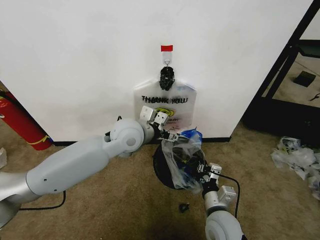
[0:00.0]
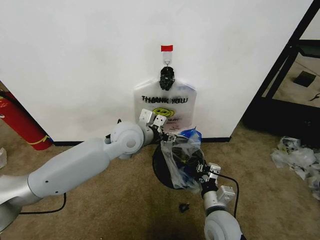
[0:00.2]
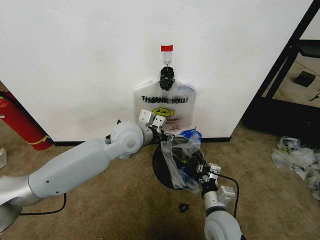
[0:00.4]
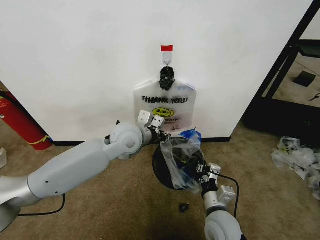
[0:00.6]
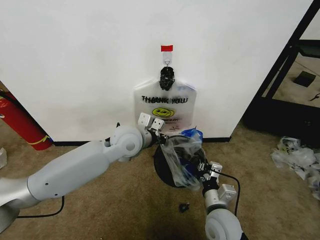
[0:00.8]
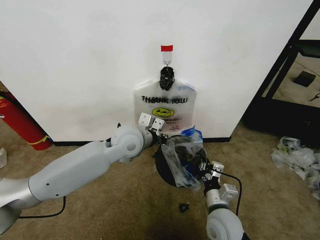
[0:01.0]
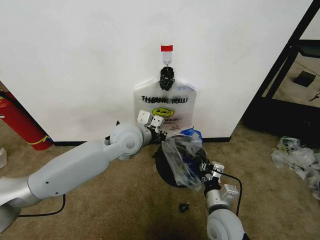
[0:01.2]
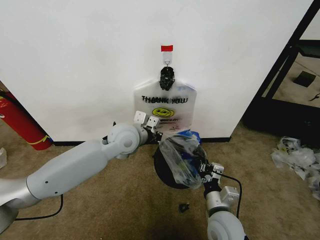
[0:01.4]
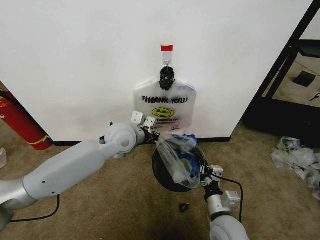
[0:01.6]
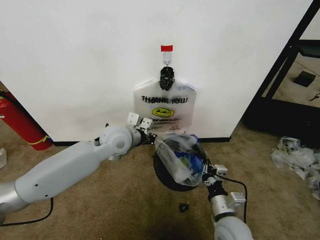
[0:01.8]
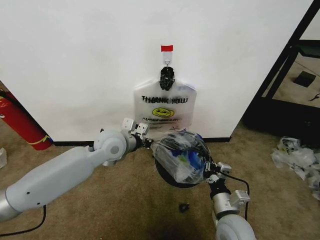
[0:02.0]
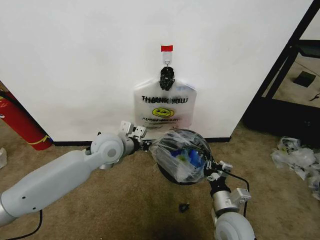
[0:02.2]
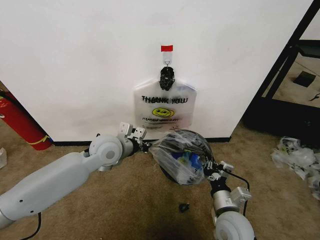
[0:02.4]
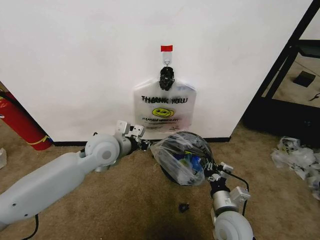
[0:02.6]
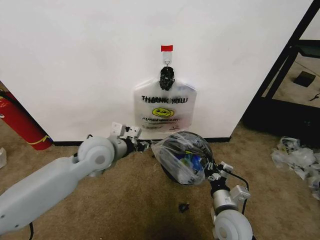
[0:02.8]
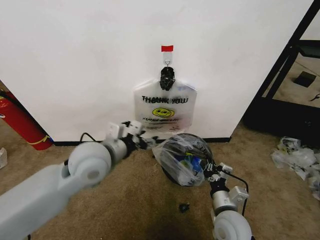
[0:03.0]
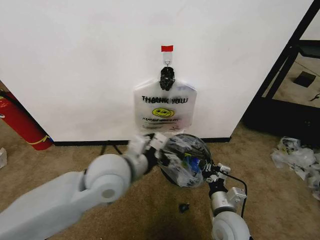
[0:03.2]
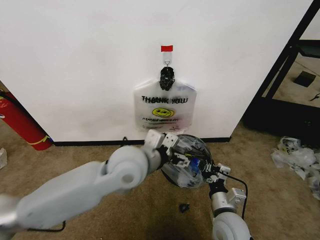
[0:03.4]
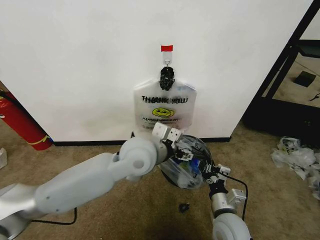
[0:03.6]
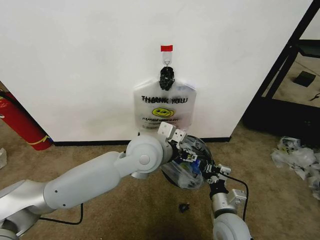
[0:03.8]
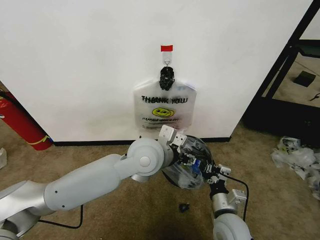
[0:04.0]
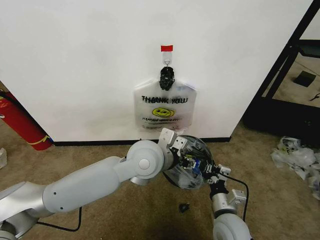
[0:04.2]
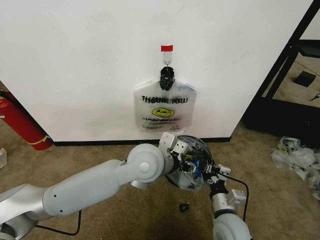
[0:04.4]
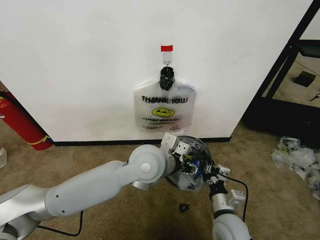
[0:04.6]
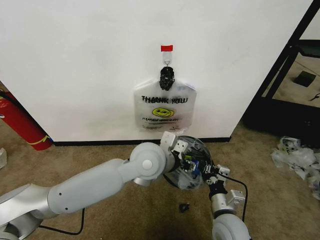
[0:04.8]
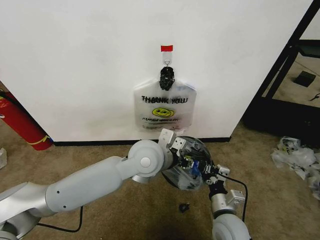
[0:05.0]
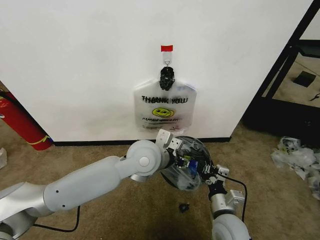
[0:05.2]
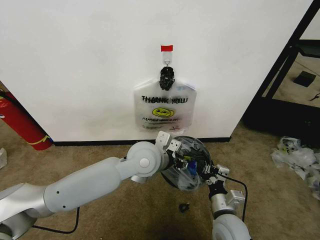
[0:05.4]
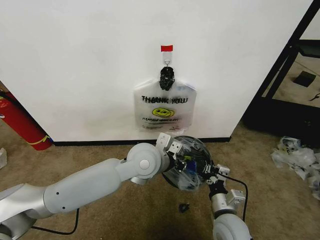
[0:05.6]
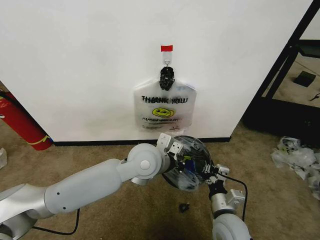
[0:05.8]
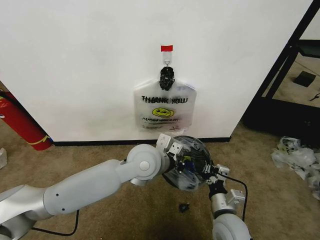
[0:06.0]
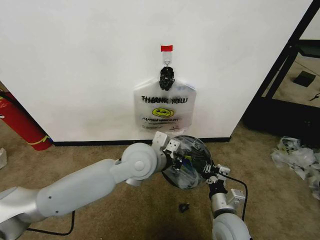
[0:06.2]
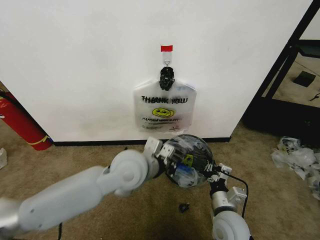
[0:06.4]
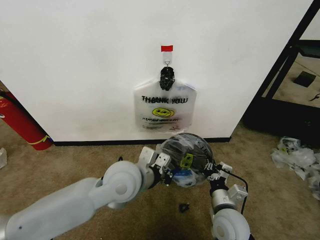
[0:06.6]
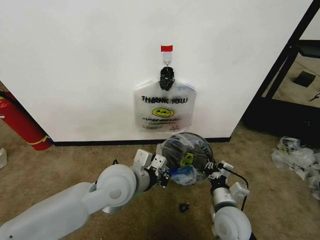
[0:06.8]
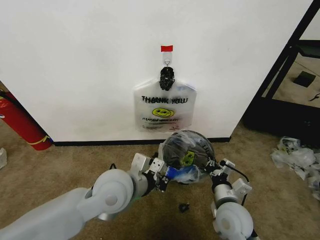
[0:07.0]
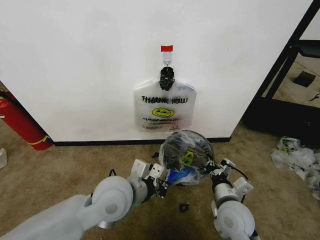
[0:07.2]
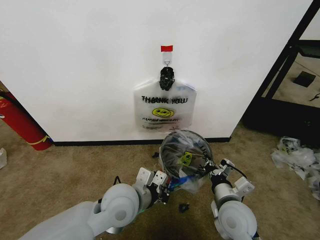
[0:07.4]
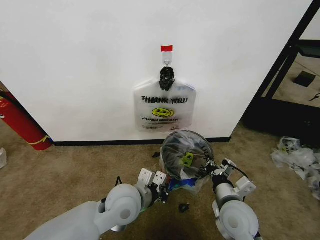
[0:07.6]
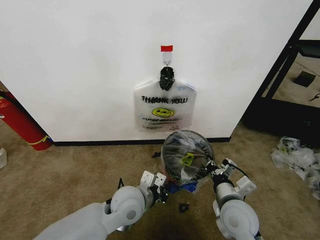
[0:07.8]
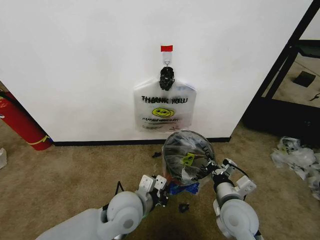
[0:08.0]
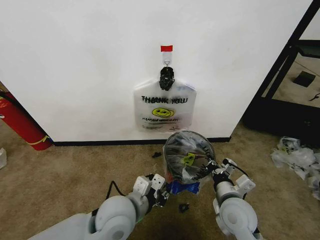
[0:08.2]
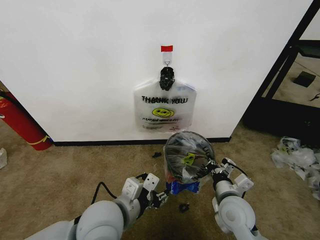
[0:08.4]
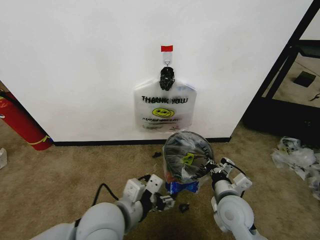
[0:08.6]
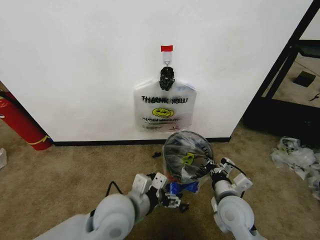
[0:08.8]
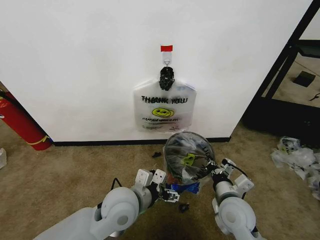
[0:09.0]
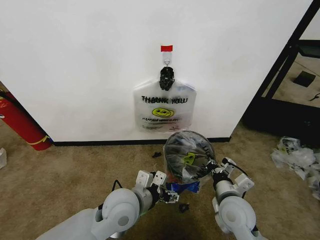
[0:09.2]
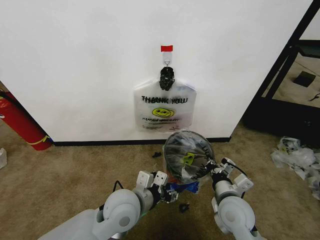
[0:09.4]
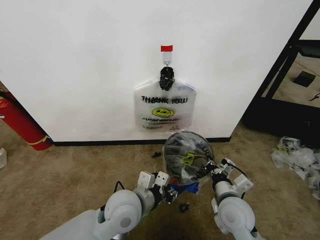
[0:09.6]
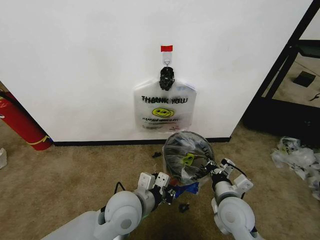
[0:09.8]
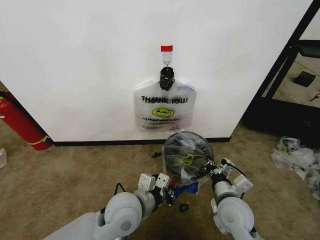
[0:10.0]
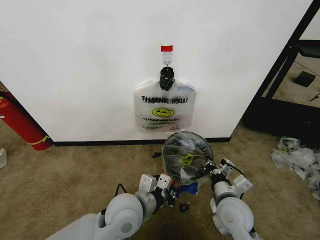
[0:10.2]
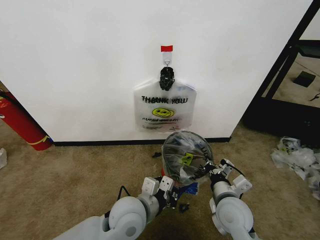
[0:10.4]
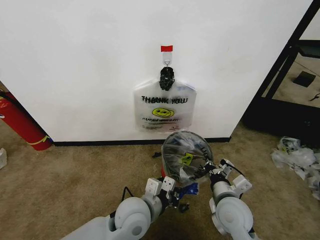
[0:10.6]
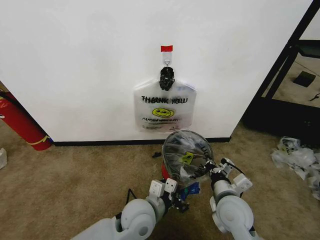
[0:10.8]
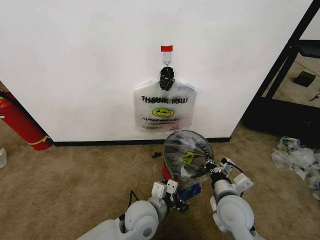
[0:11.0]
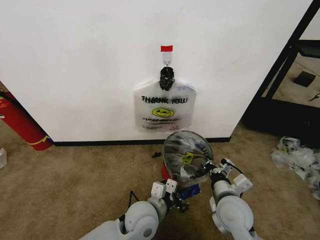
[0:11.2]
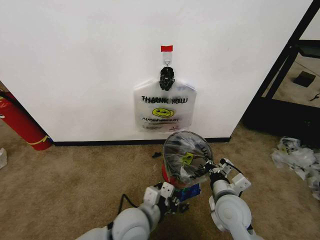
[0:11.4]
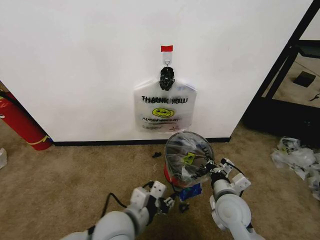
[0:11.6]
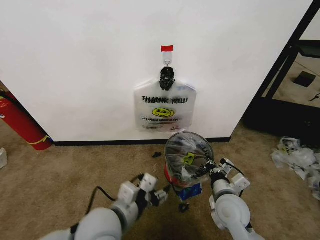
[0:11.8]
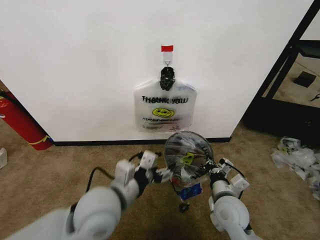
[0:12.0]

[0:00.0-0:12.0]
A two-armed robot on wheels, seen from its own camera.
Task of the whole recording: Pick up the garbage bag from the wall and place it over the trash bin.
0:00.0 to 0:01.6: The left gripper closes.
0:01.6 to 0:03.0: The left gripper shifts about 10 cm backward, and opens.
0:03.0 to 0:04.4: The left gripper shifts some 15 cm to the right, and opens and closes again.
0:04.4 to 0:06.0: The left gripper closes.
0:06.0 to 0:07.6: The left gripper travels backward, downward and to the left by approximately 10 cm. Meanwhile the right gripper heads upward, covering approximately 5 cm.
0:07.6 to 0:09.0: The left gripper travels upward and back again, about 5 cm each way, and opens.
0:09.0 to 0:10.4: The left gripper closes up.
0:10.4 to 0:12.0: The left gripper goes about 10 cm upward and to the left, and opens up.

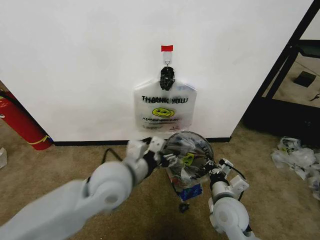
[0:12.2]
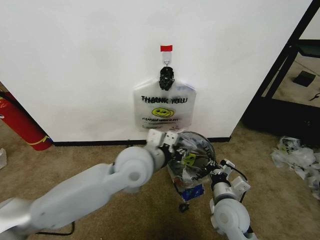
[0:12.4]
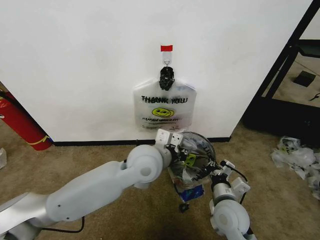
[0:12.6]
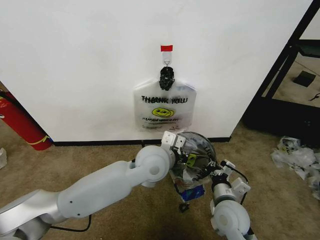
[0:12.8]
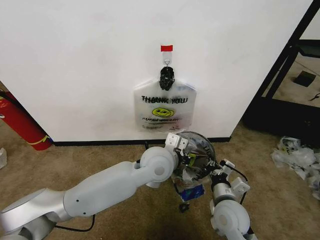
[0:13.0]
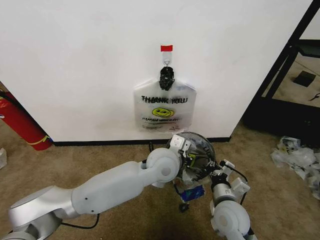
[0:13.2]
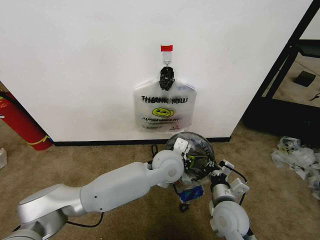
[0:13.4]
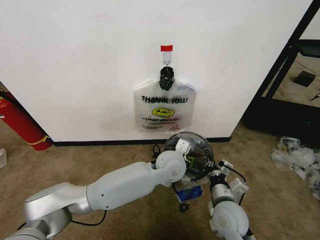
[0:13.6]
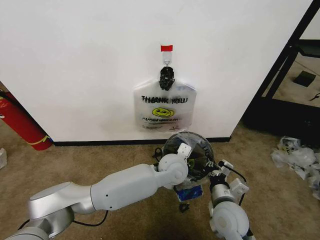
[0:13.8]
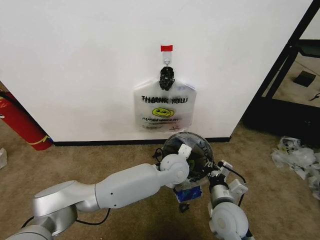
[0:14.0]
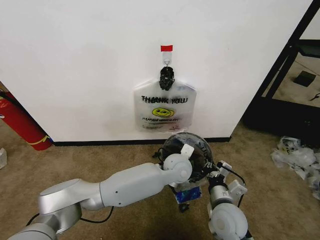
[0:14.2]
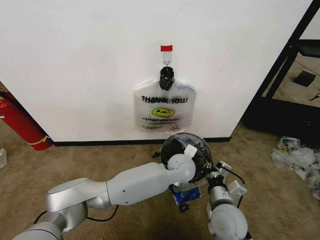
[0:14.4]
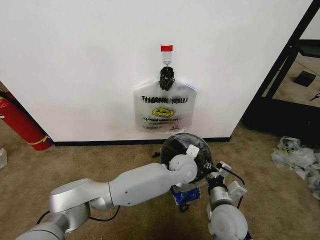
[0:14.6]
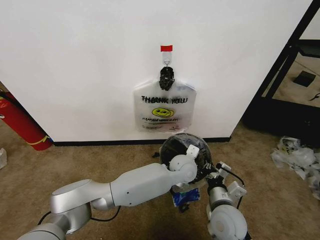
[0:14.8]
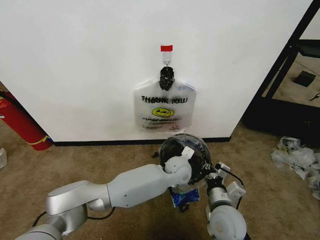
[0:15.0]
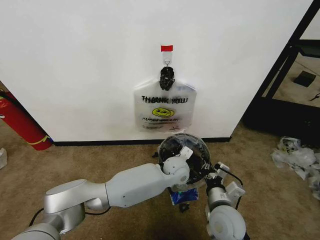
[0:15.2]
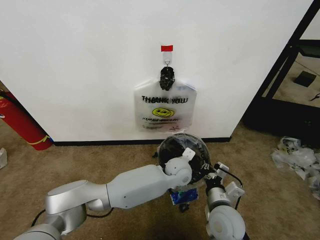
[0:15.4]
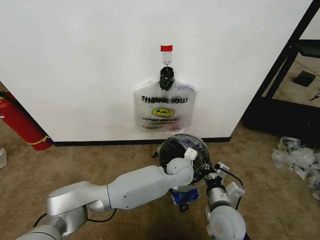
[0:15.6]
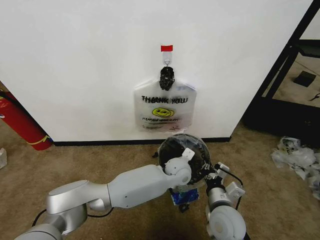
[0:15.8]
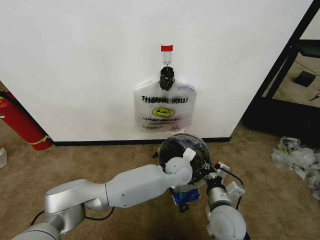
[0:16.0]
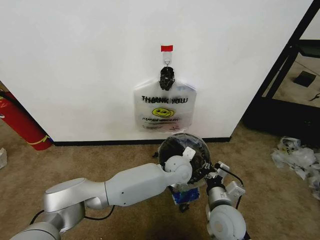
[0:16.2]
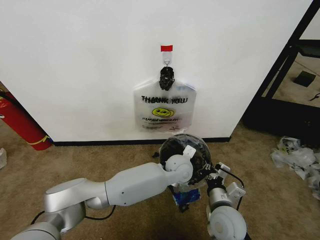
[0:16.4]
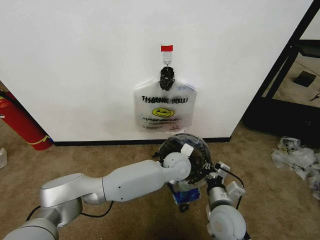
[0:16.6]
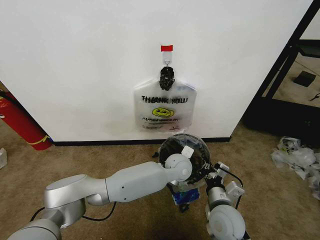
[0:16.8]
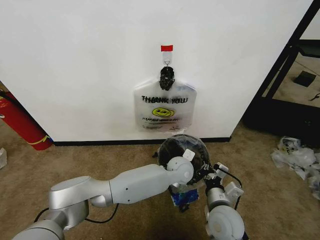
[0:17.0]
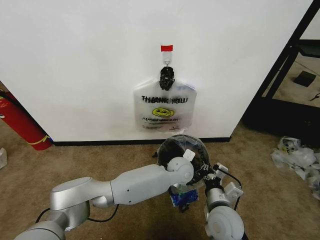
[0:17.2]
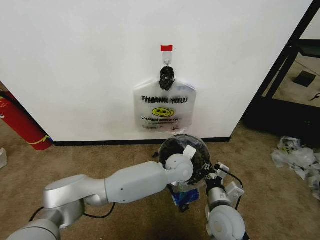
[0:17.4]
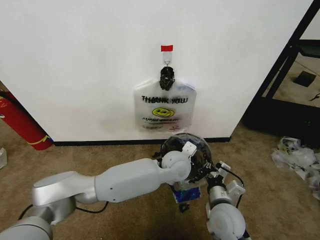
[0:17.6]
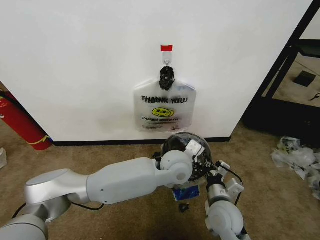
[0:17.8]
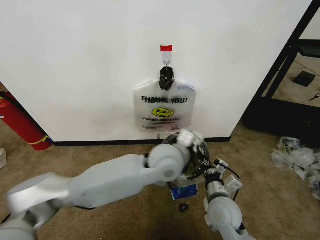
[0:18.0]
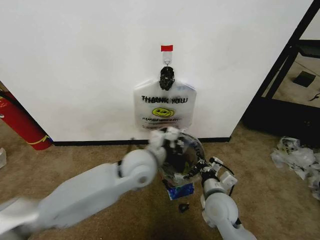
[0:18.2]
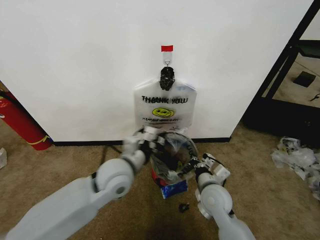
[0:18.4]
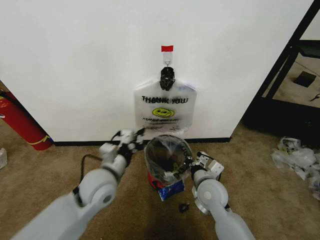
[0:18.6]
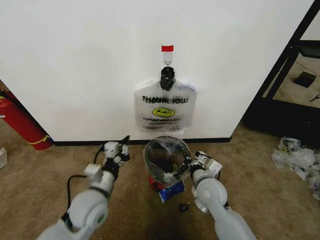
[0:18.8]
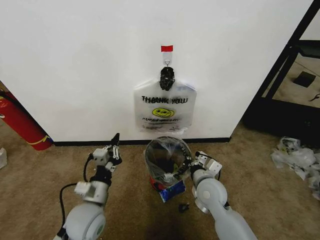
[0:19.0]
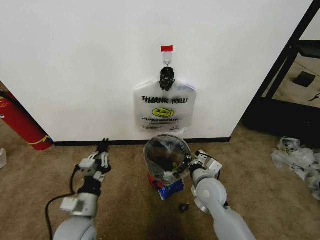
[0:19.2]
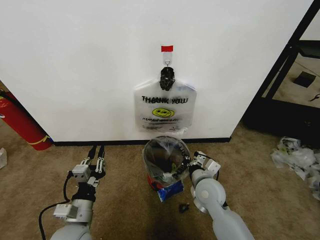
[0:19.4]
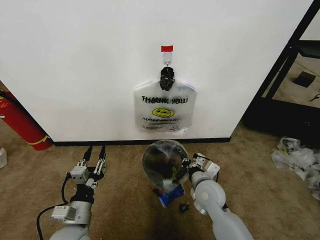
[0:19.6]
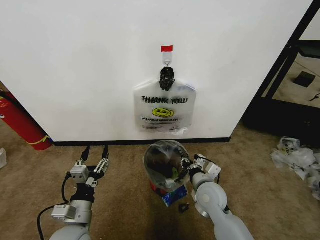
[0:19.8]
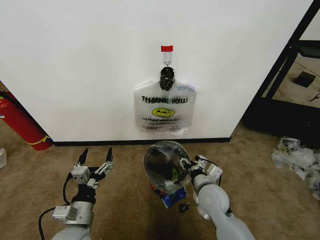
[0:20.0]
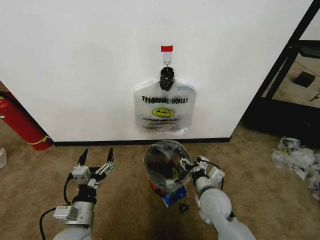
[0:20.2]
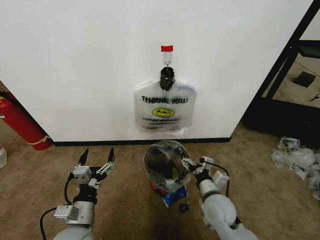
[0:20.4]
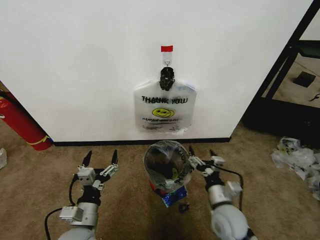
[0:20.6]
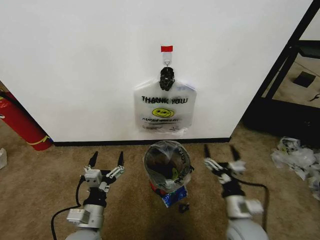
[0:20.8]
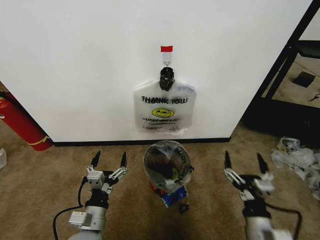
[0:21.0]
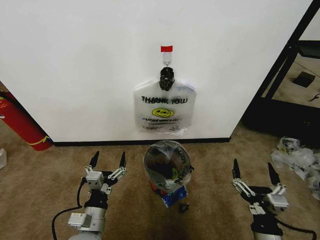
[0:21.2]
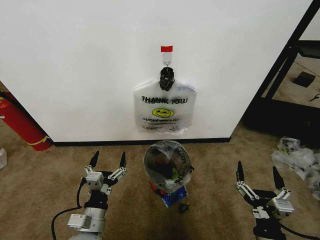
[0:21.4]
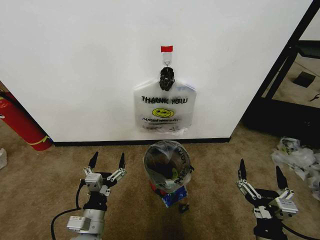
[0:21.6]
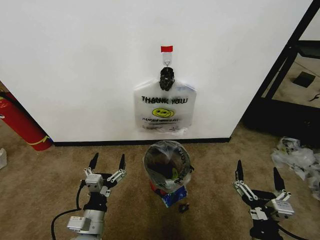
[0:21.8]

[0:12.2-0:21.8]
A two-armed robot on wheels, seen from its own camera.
Task of the whole recording: Pick up the garbage bag from the wall and place it over the trash bin.
0:12.2 to 0:13.8: The left gripper goes some 25 cm to the right, forward and downward, and closes up.
0:13.8 to 0:15.4: The left gripper goes some 5 cm downward.
0:15.4 to 0:17.0: The grippers stay close to where they were, moving slightly.
0:17.0 to 0:18.6: The right gripper moves forward, some 10 cm; the left gripper is displaced to the left and backward by roughly 25 cm.
0:18.6 to 0:20.2: The right gripper opens up. The left gripper moves backward, downward and to the left, approximately 15 cm, and opens up.
0:20.2 to 0:21.8: The right gripper goes roughly 20 cm backward.
